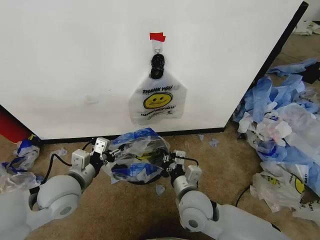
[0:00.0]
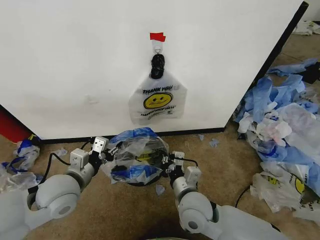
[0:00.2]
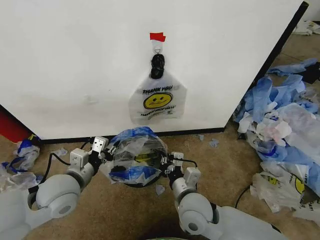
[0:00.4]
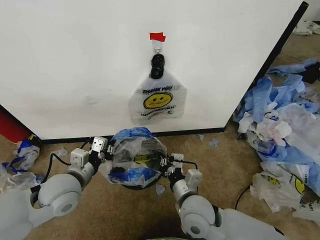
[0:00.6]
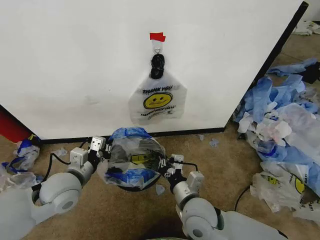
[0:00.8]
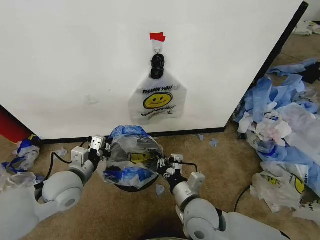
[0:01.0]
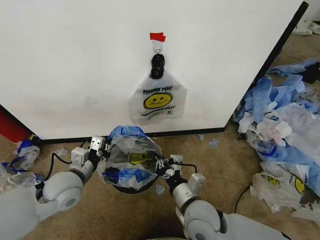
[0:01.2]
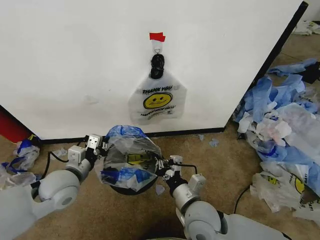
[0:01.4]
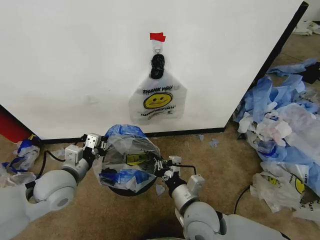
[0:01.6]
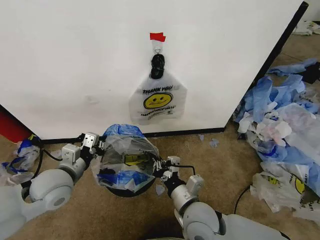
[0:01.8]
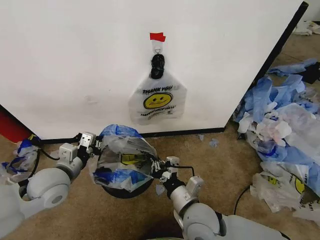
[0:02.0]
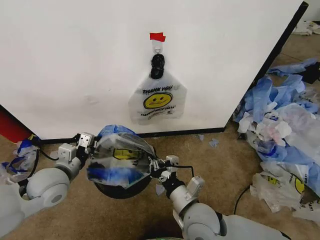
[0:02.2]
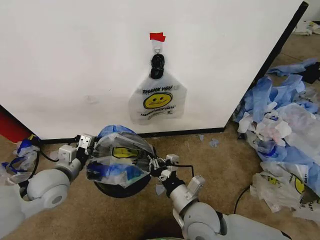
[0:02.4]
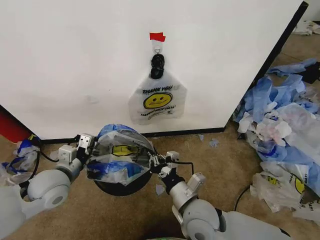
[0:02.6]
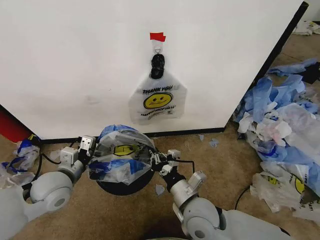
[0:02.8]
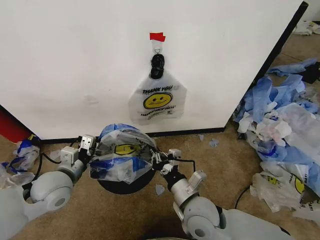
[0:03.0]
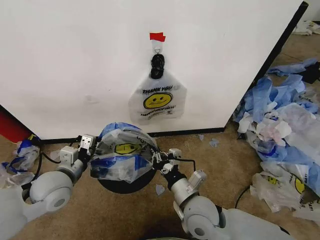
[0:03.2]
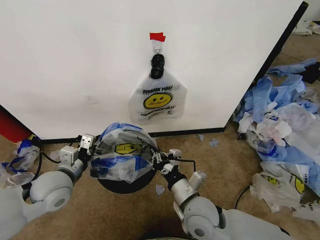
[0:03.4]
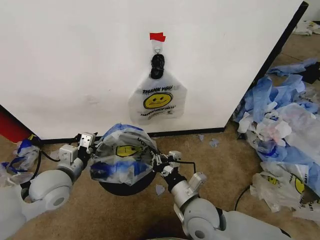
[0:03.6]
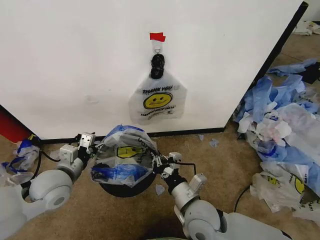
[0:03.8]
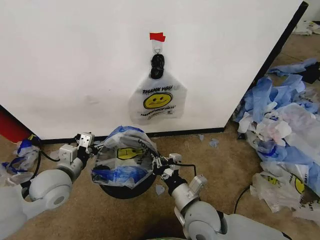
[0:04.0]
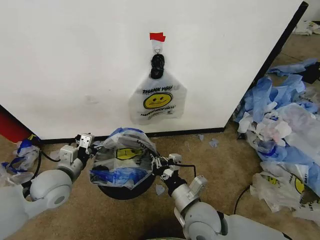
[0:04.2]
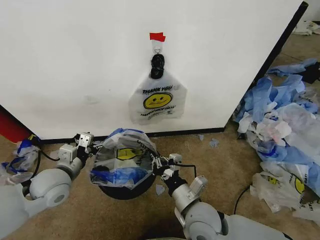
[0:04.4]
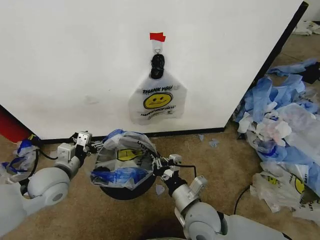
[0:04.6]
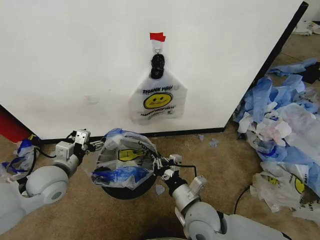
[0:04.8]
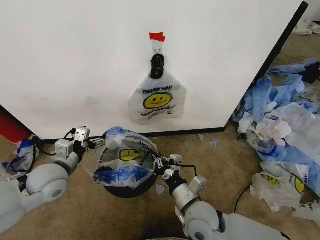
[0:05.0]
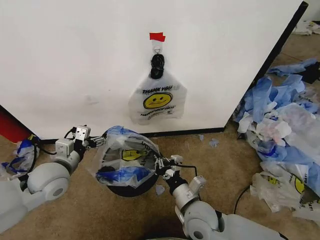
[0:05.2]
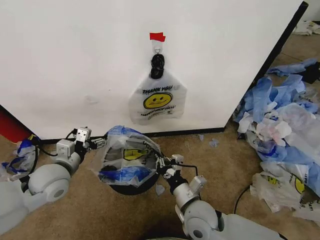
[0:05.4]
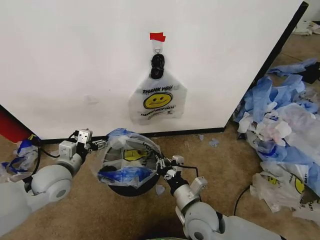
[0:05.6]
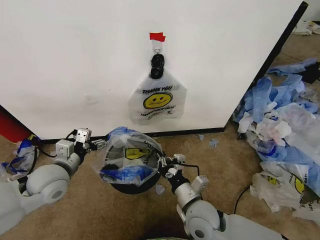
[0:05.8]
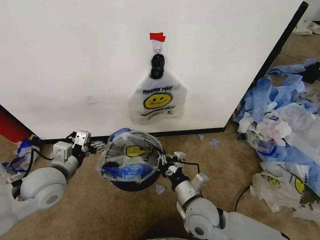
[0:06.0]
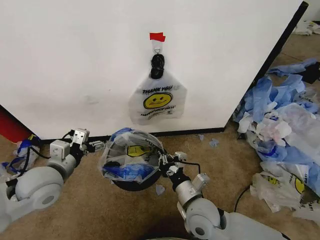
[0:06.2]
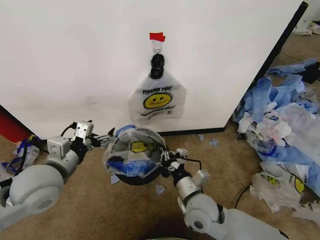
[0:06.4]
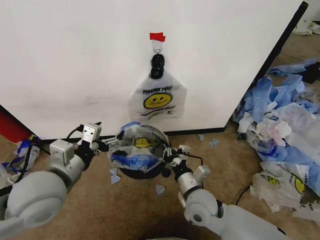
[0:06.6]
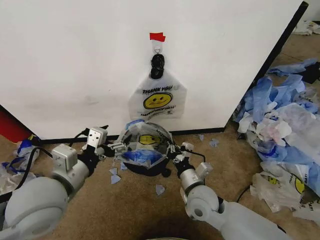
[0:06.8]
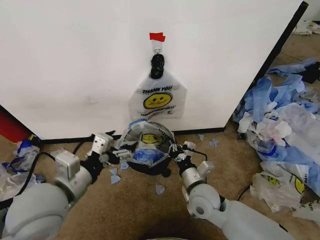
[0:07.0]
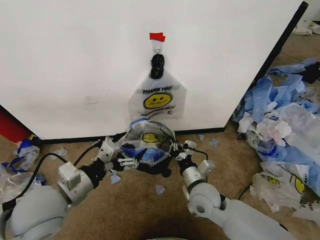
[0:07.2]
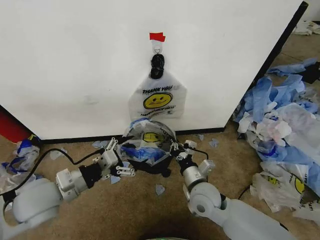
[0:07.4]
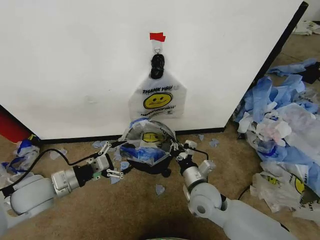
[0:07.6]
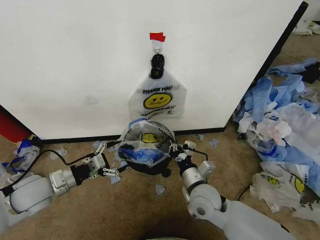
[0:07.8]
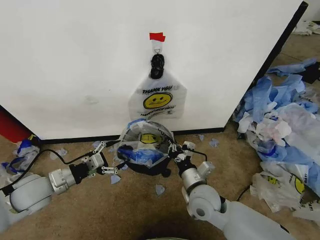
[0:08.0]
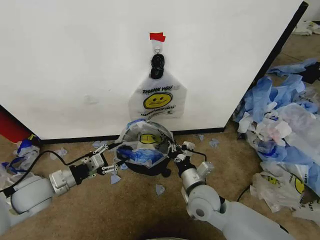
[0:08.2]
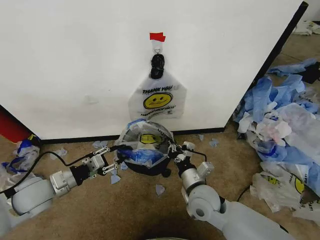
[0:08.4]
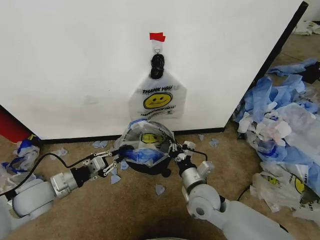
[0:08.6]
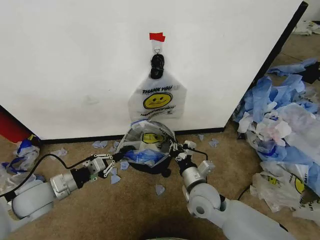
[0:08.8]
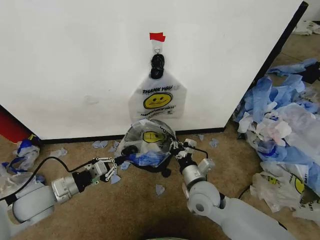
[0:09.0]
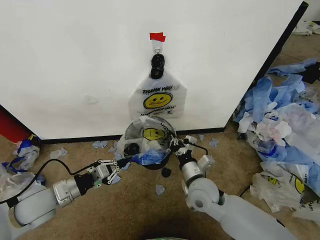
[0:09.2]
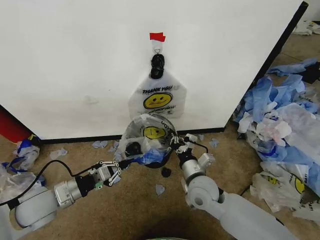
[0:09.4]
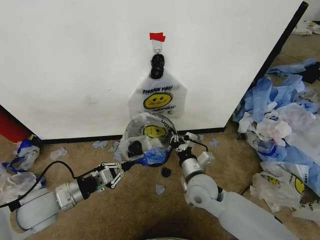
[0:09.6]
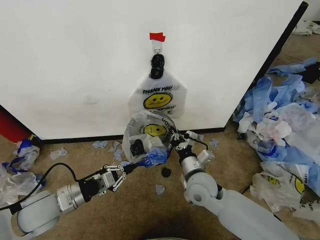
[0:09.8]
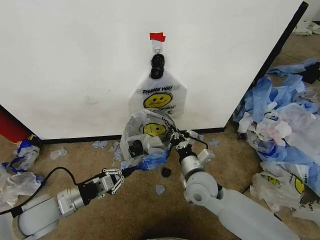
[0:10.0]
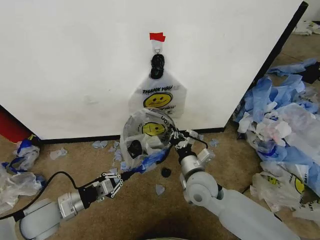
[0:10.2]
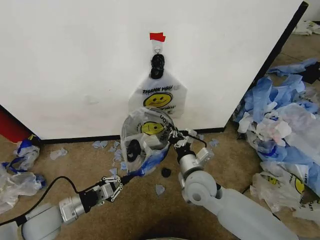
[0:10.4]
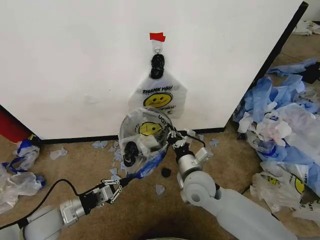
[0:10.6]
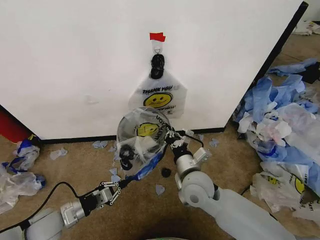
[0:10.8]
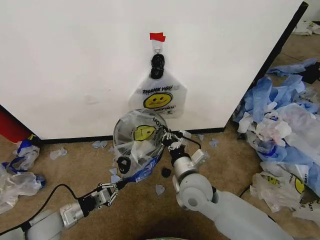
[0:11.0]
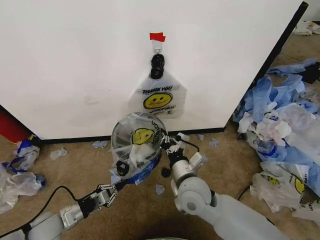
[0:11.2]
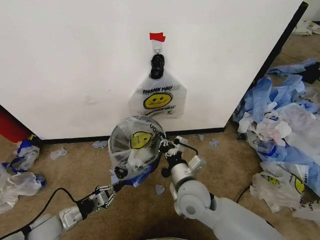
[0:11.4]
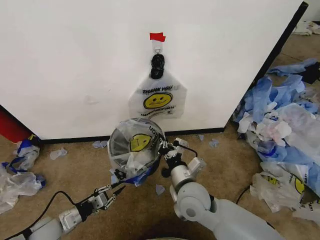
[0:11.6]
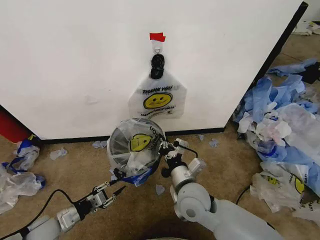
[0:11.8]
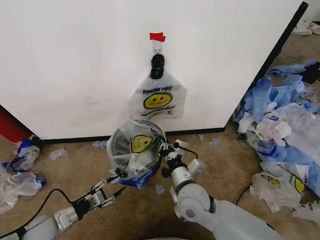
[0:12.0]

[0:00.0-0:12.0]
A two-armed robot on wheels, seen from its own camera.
Task of the whole recording: Pick up the garbage bag from the wall and place it over the trash bin.
0:00.0 to 0:01.6: The left gripper closes up.
0:01.6 to 0:03.0: There are only small adjustments of the grippers.
0:03.0 to 0:04.4: The left gripper opens.
0:04.4 to 0:06.0: The grippers stay close to where they were, moving slightly.
0:06.0 to 0:07.6: The right gripper changes place by about 5 cm; the left gripper travels to the right and back again, about 5 cm each way.
0:07.6 to 0:09.0: The left gripper closes up.
0:09.0 to 0:10.4: The left gripper shifts approximately 5 cm downward.
0:10.4 to 0:12.0: The left gripper shifts roughly 5 cm downward, and opens up.

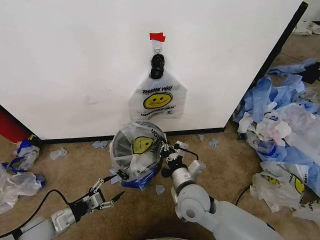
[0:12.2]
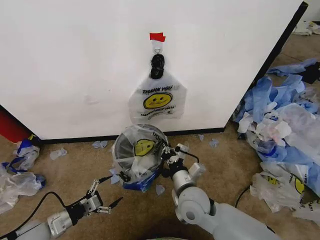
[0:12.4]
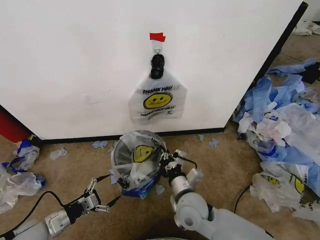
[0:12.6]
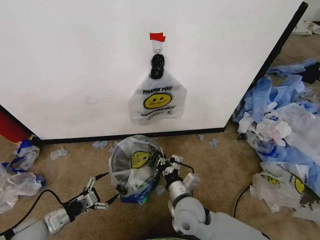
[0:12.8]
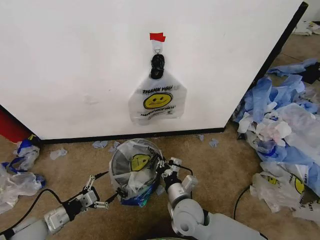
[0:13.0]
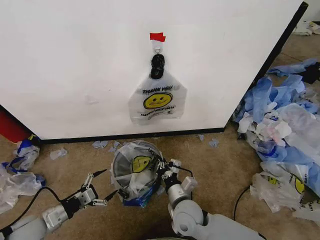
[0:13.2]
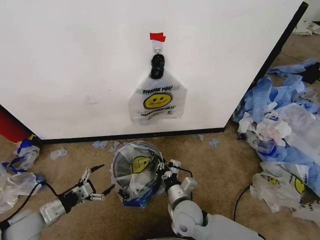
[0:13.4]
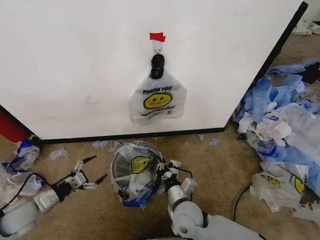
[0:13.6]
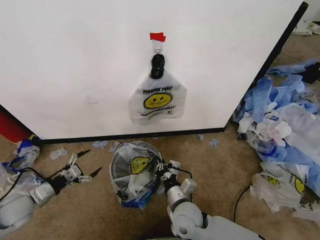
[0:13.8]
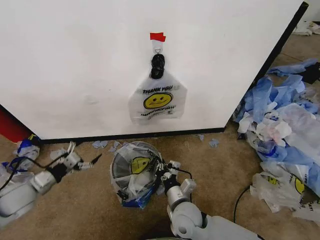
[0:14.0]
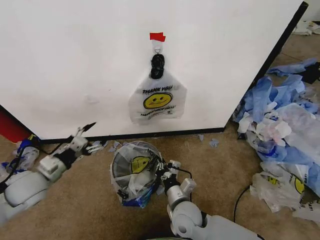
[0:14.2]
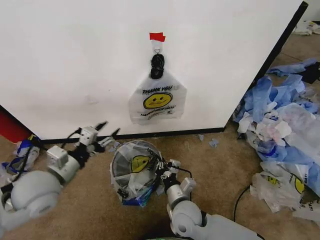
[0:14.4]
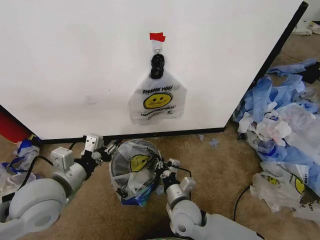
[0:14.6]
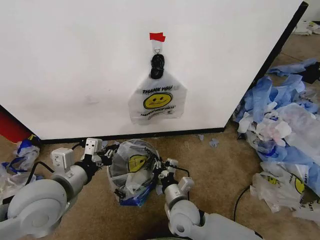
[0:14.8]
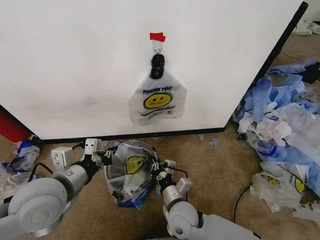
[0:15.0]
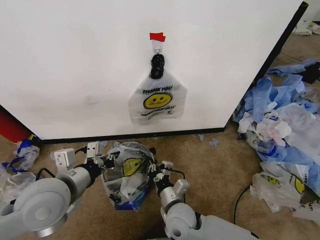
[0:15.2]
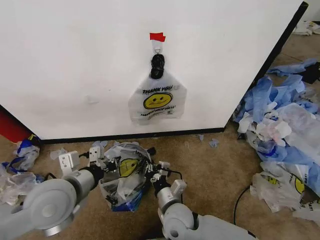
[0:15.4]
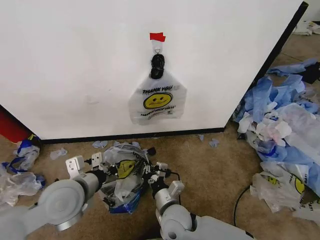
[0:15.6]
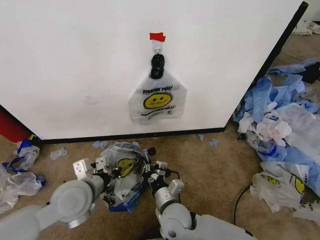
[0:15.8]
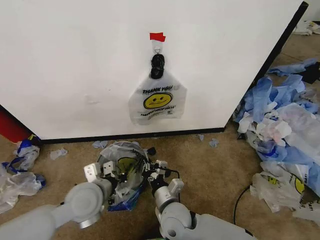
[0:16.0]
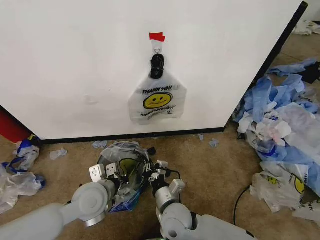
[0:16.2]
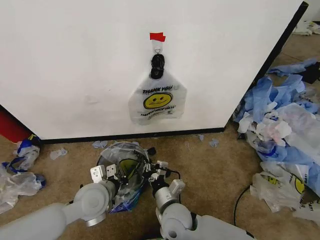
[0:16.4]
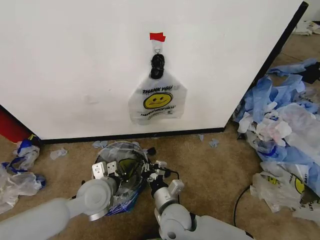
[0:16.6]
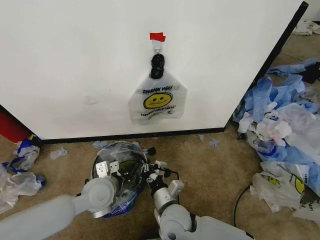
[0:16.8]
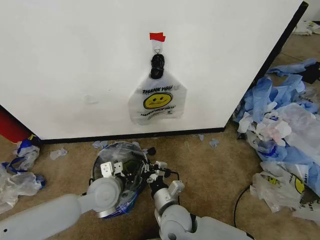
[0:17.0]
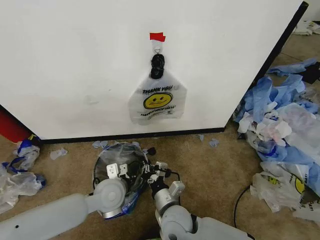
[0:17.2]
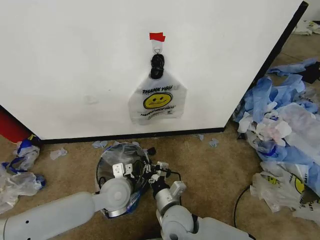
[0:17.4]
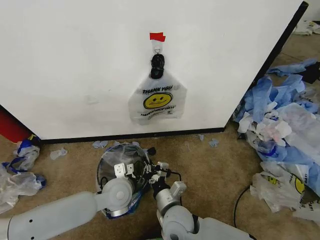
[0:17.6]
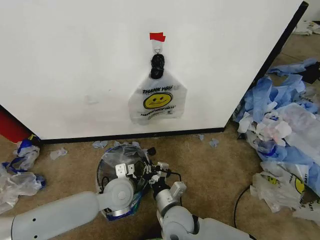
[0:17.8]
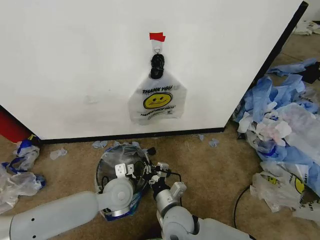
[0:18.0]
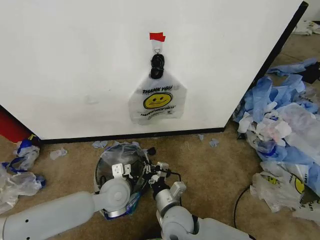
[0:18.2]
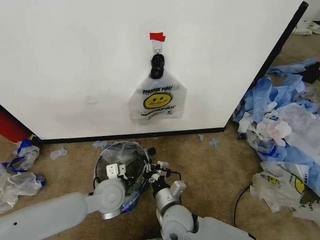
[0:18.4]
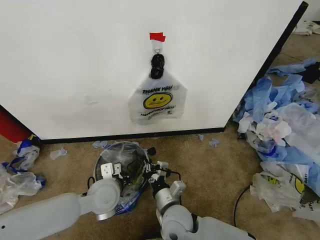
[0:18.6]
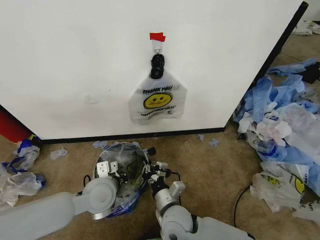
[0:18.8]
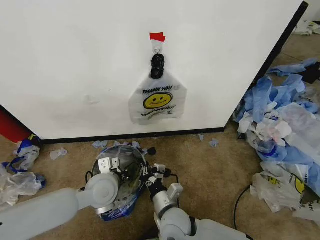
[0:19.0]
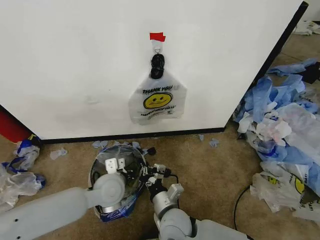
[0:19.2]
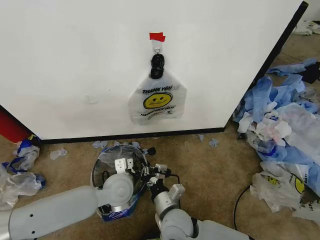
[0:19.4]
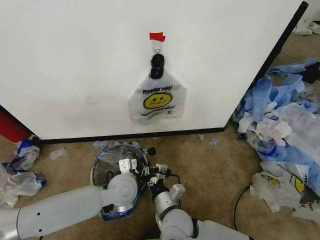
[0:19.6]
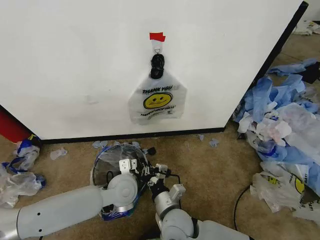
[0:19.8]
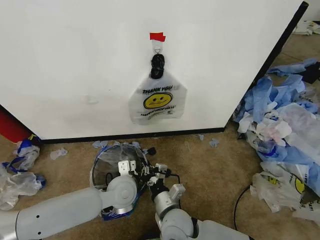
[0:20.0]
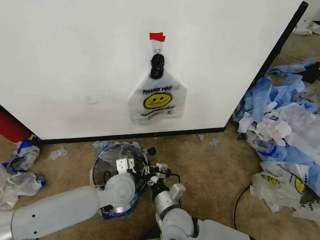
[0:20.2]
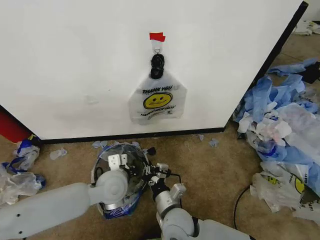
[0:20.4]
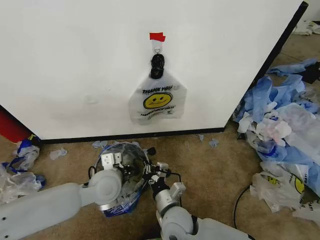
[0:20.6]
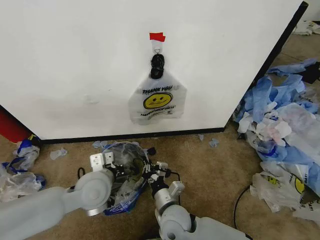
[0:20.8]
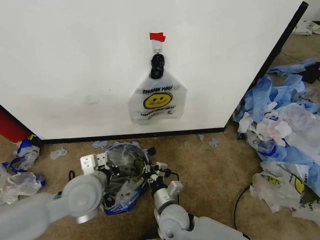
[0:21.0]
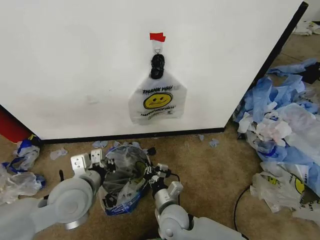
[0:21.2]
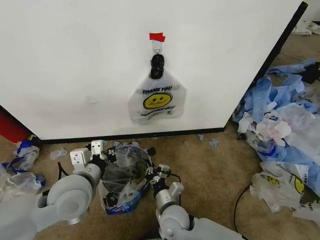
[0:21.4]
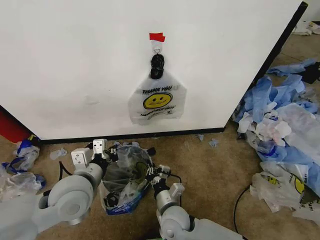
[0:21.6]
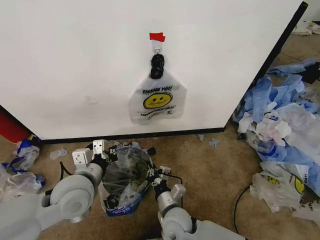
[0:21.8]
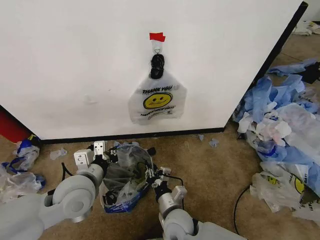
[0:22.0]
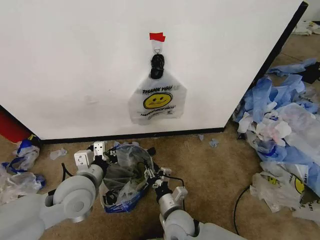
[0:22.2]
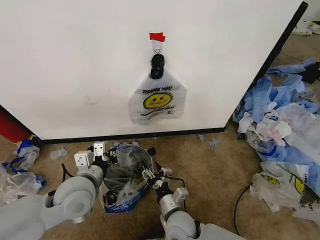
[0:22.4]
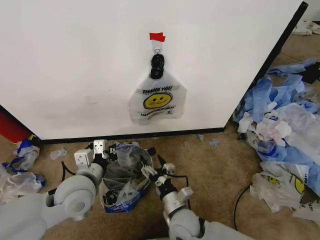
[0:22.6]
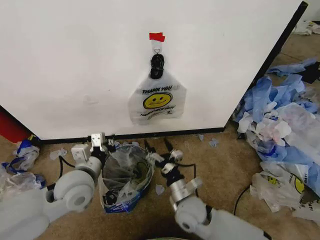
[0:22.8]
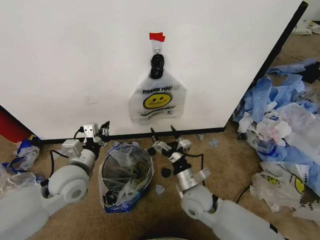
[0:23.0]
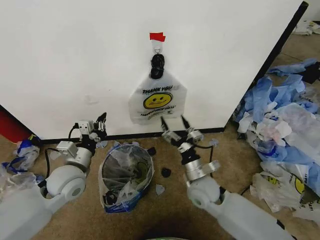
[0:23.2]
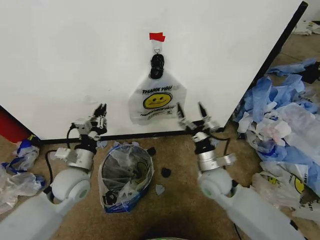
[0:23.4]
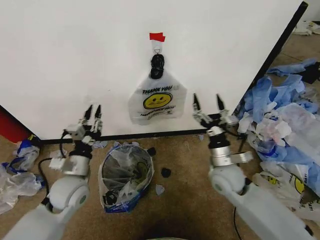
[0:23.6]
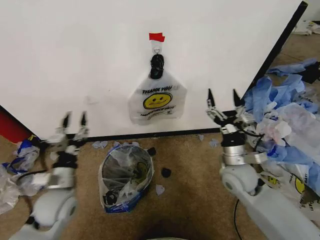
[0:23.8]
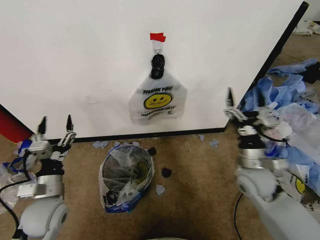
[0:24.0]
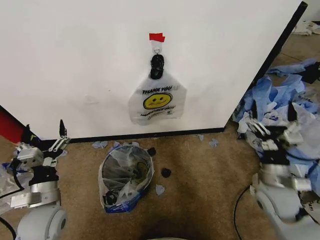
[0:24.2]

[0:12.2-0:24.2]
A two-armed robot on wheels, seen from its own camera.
Task of the whole recording: Pick up the garbage bag from the wall and place it over the trash bin.
0:12.2 to 0:13.8: The right gripper shifts some 5 cm downward; the left gripper moves to the left and forward, roughly 10 cm.
0:13.8 to 0:15.2: The left gripper moves to the right and upward, roughly 30 cm, and closes its fingers.
0:15.2 to 0:16.6: The left gripper is displaced downward and forward by some 15 cm.
0:16.6 to 0:18.2: The left gripper shifts roughly 5 cm to the right.
0:18.2 to 0:19.8: The grippers stay close to where they were, moving slightly.
0:19.8 to 0:21.2: The left gripper heads upward, to the left and backward, covering approximately 15 cm.
0:21.2 to 0:22.6: The right gripper opens up.
0:22.6 to 0:24.2: The left gripper goes some 10 cm to the left and downward, and opens up, while the right gripper travels to the right and upward by roughly 30 cm.
